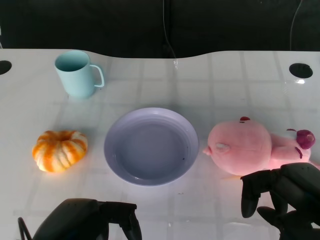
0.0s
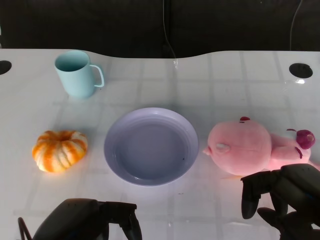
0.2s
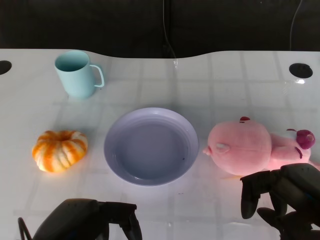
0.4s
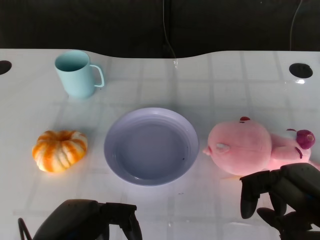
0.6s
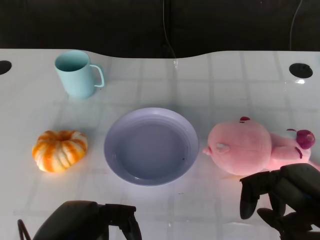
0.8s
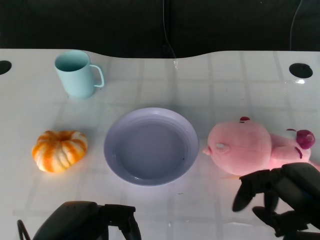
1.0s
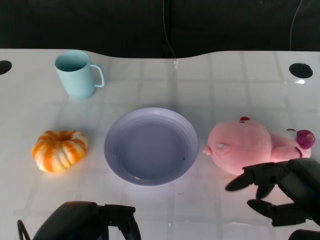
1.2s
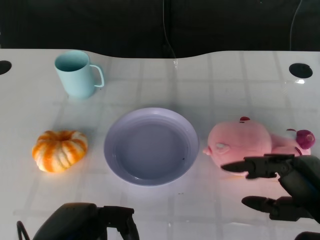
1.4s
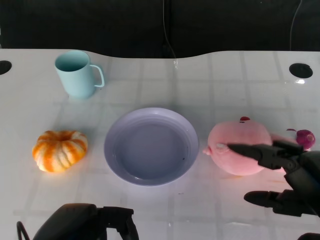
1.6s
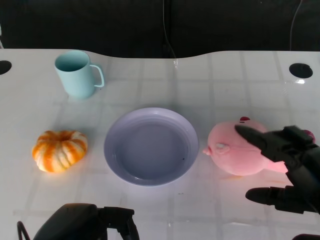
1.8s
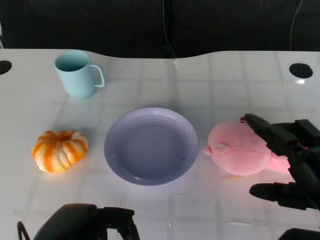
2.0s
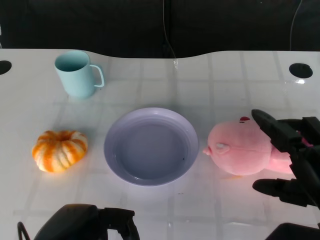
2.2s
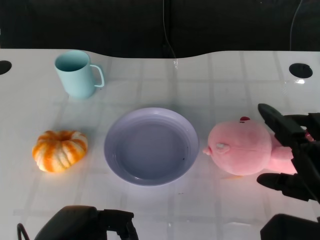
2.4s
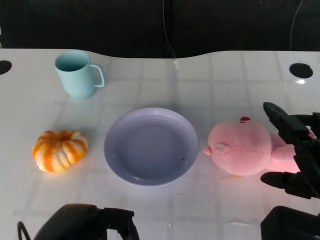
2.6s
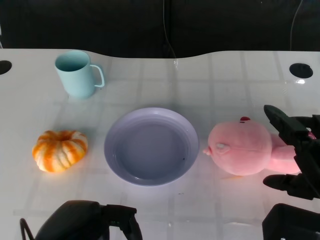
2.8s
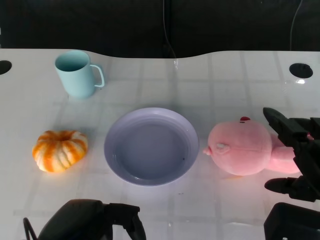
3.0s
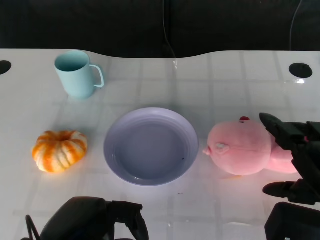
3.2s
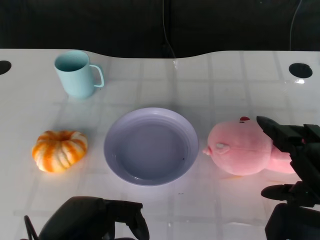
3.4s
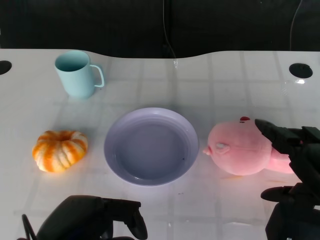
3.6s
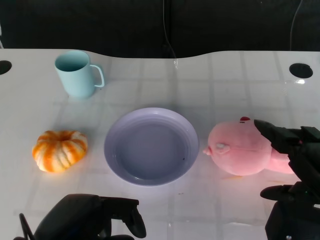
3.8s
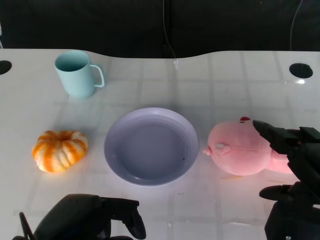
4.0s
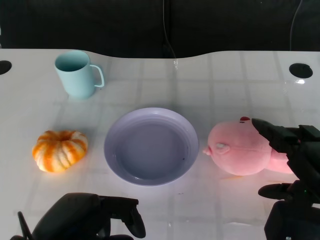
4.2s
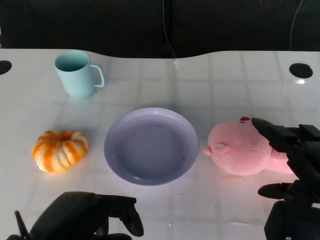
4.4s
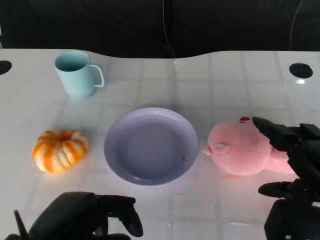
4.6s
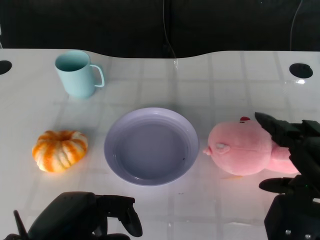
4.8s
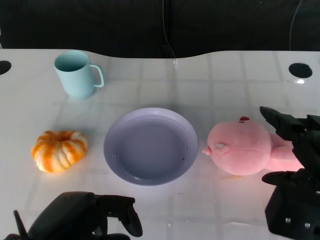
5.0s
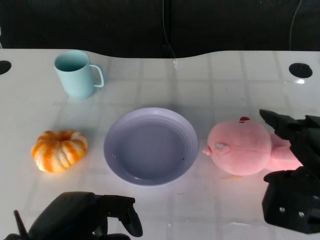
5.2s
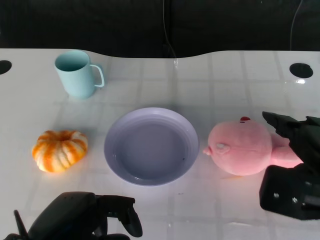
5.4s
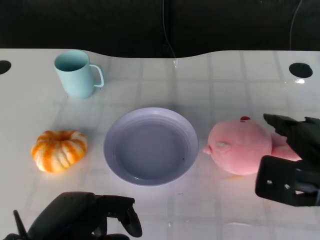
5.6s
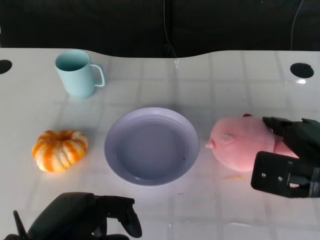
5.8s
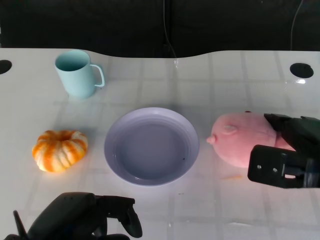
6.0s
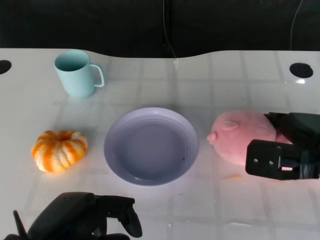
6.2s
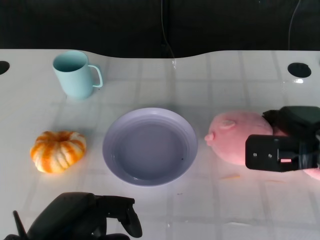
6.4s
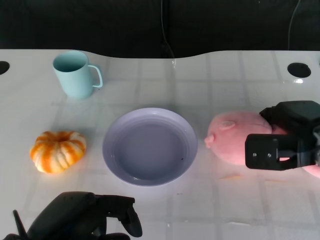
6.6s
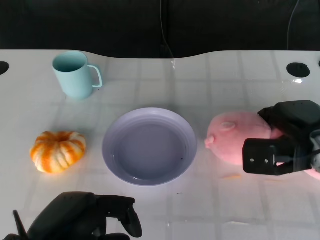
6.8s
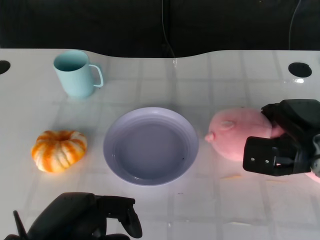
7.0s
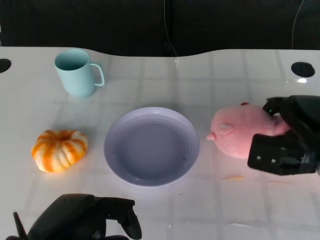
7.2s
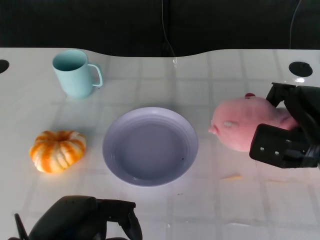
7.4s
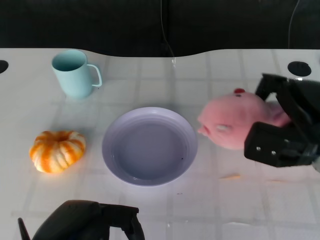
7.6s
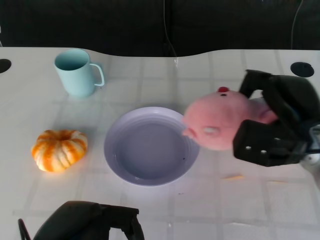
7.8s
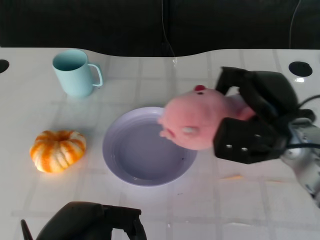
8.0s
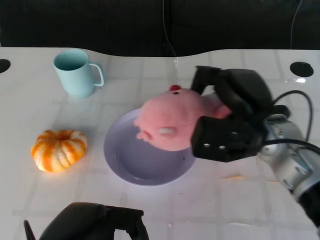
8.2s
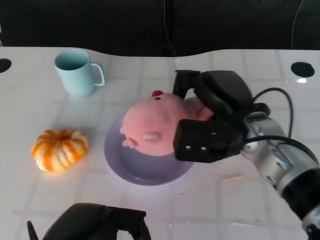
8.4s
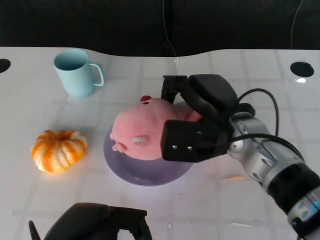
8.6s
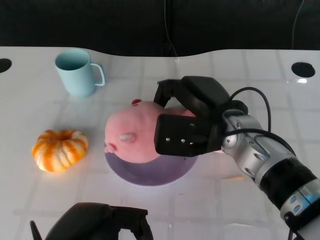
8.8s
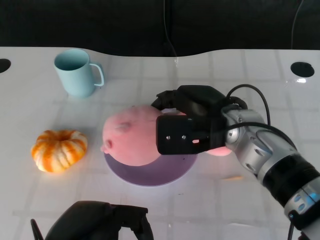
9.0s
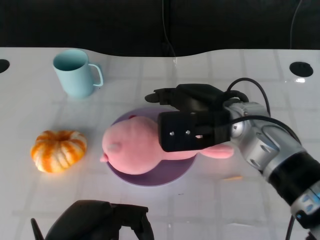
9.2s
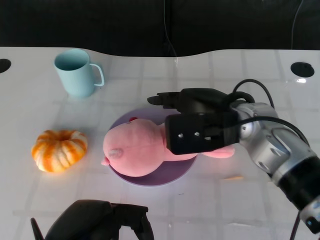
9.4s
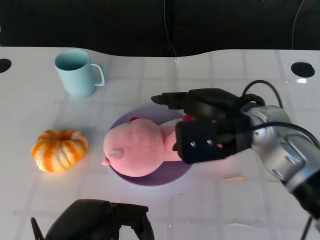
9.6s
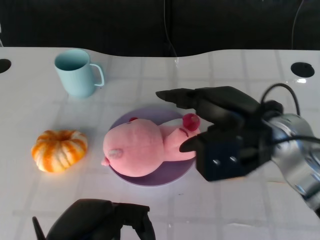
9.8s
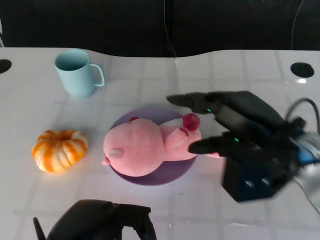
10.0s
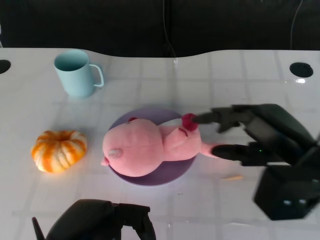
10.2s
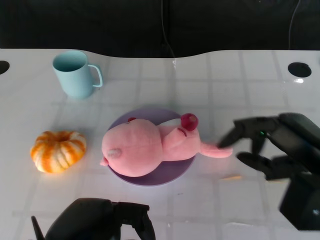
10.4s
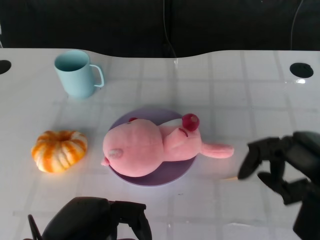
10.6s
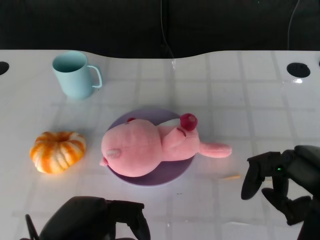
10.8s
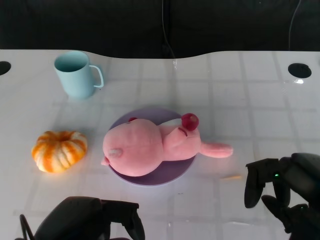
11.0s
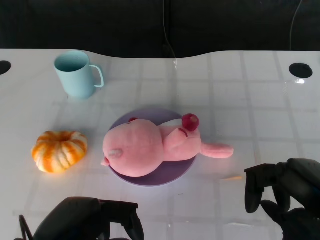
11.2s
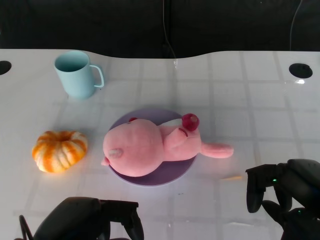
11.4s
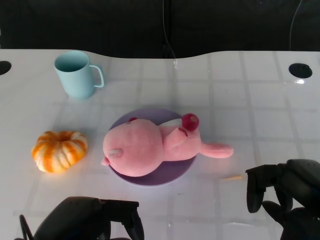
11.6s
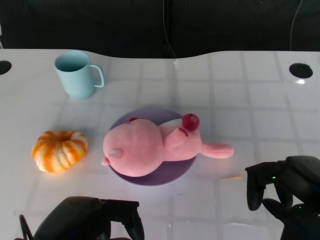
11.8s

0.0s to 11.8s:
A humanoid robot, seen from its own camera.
Task of the whole recording: Pick up the doll on the other side of the plate and place it into the plate.
Step, 1.0s to 7.4s: Grasp the pink doll with the right gripper.
Step, 7.6s to 9.8s: Place the pink doll into the plate with the right gripper.
3.0s to 4.4s: There are only small adjustments of the hands.
4.4s to 6.0s: The right hand is displaced forward by some 10 cm.
7.4s to 8.8s: The right hand travels to the left by about 15 cm.
8.8s to 10.4s: The right hand travels to the right and backward by about 15 cm.
10.4s to 11.8s: The right hand ends up roughly 5 cm from where it was.
